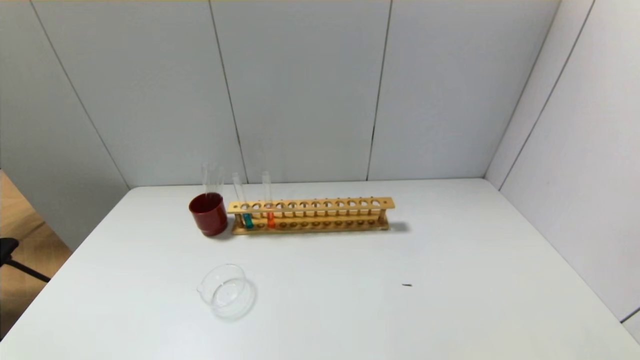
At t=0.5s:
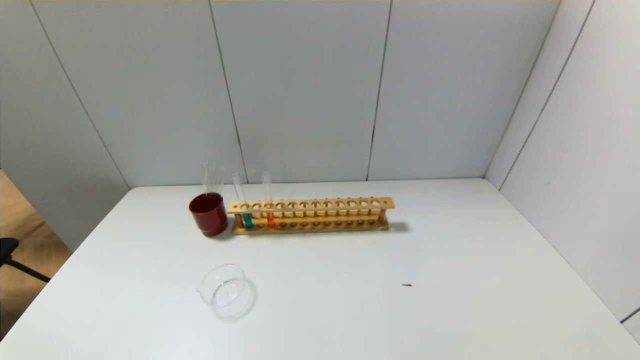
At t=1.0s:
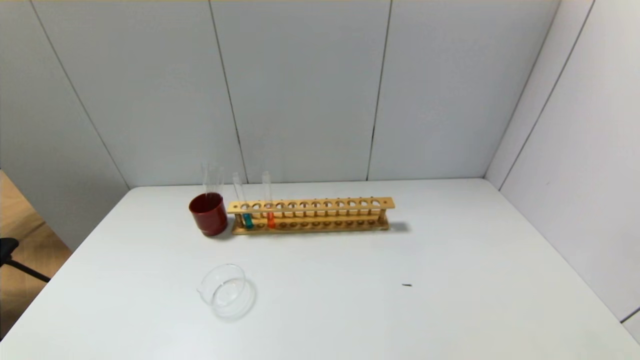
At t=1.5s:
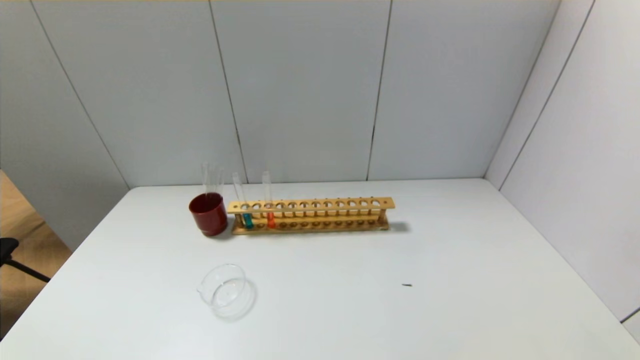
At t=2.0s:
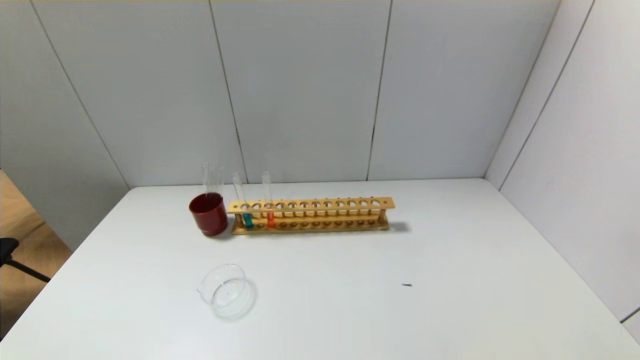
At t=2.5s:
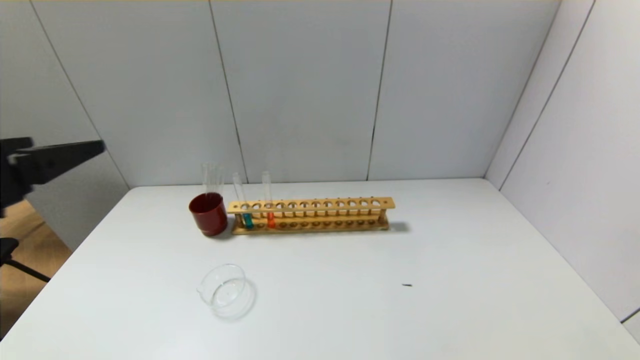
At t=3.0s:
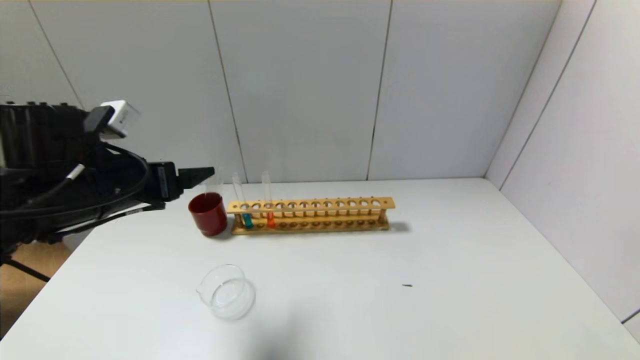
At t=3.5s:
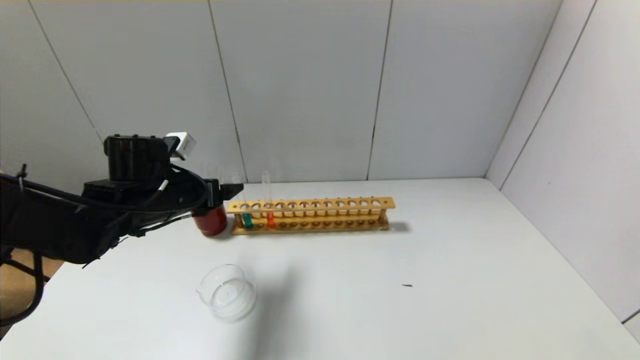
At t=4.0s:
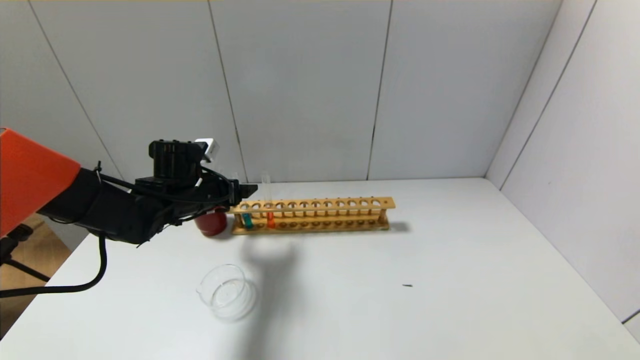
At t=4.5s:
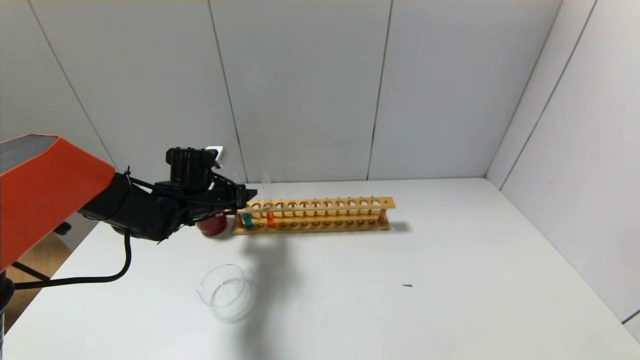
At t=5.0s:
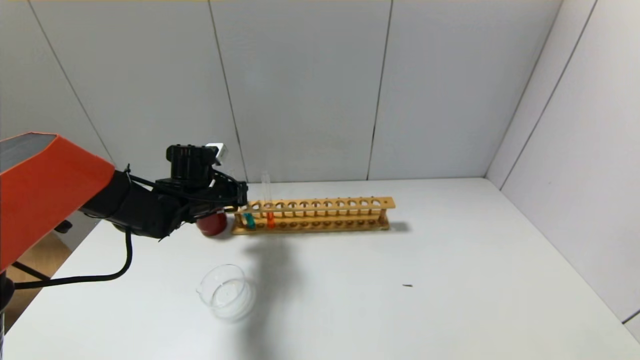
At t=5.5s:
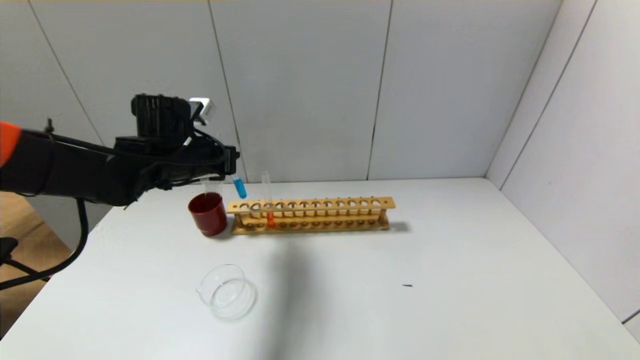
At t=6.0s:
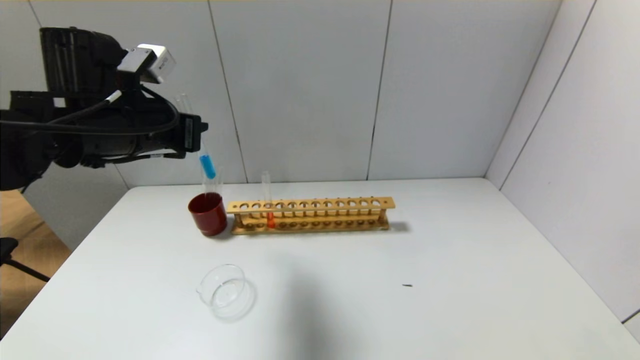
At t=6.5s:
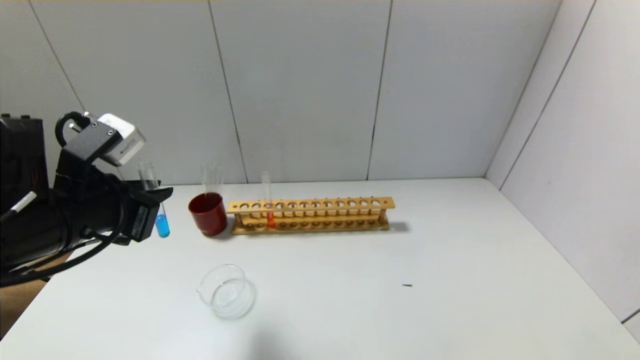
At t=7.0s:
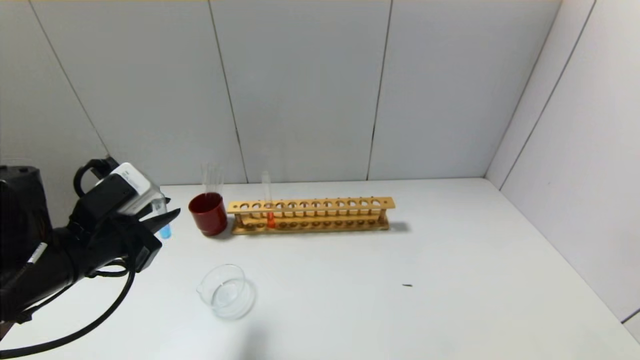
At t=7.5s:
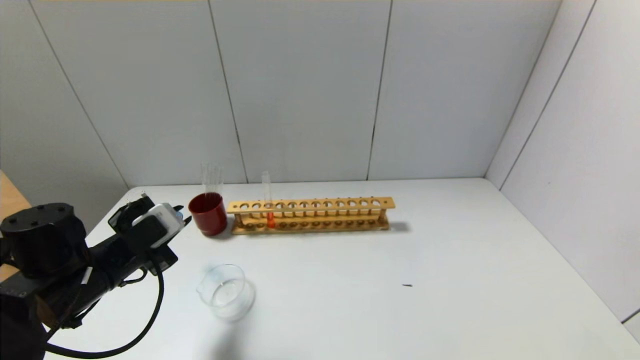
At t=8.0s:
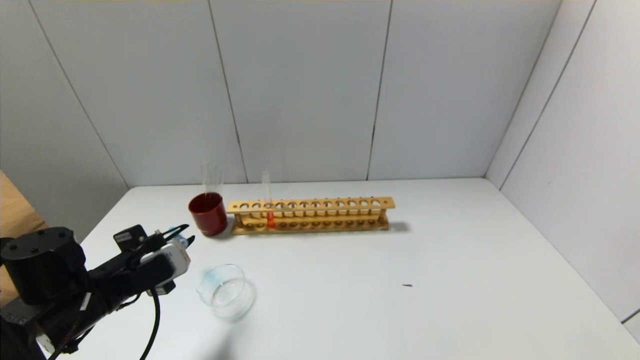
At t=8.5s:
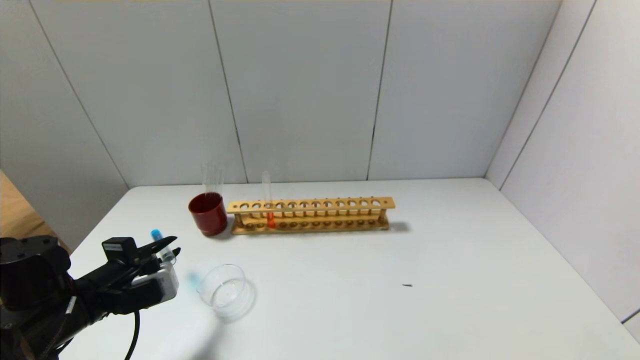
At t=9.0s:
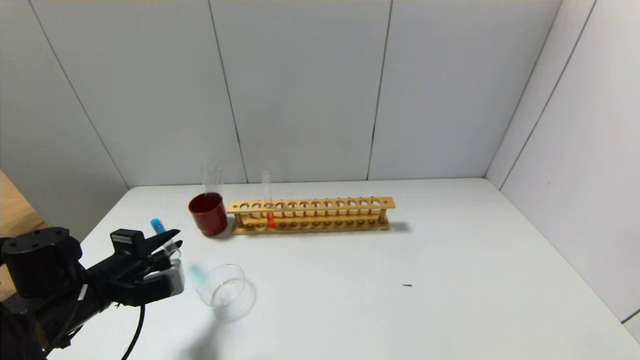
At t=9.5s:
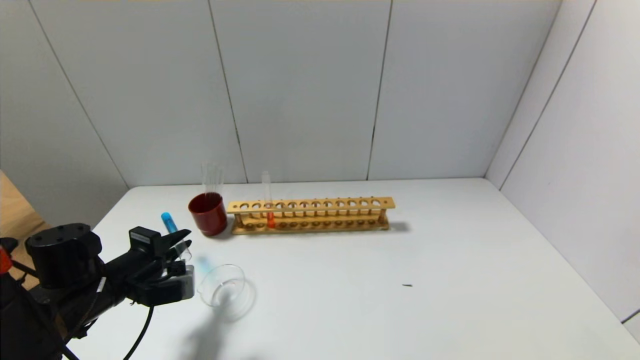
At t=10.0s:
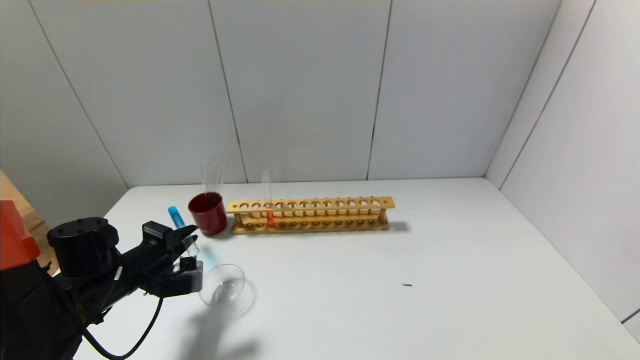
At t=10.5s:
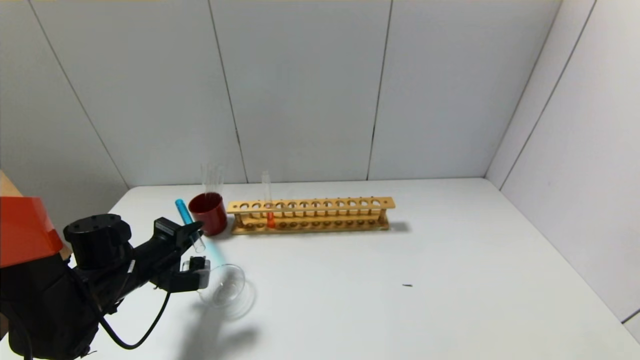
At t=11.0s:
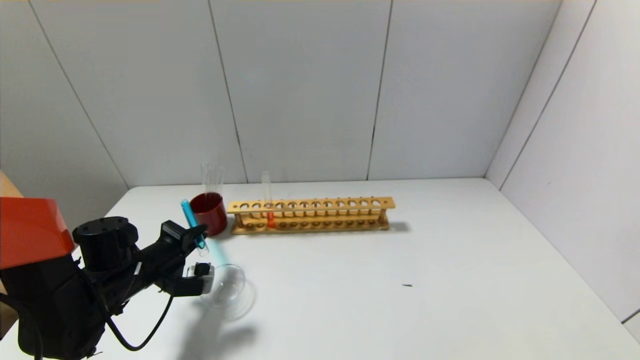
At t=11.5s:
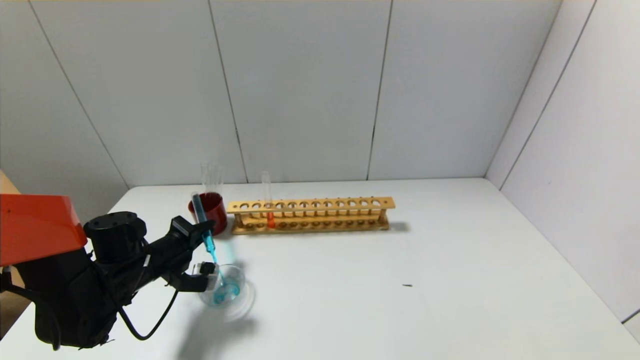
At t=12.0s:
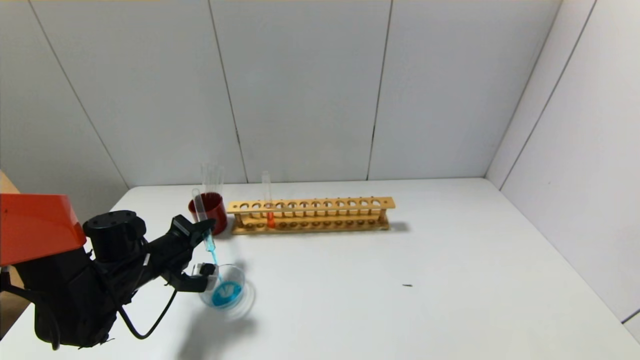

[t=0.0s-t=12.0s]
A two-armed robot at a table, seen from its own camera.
Step, t=0.0s to t=5.0s: Grasp the blue reagent with the left gripper.
t=2.0s to t=4.0s: The left gripper goes some 40 cm forward.
t=4.0s to t=6.0s: The left gripper shifts roughly 15 cm upward and backward, and closes up.
t=6.0s to t=8.0s: The left gripper heads downward and backward, covering roughly 20 cm.
t=8.0s to t=10.0s: The left gripper heads forward, covering about 5 cm.
t=10.0s to t=12.0s: The grippers move only a little.

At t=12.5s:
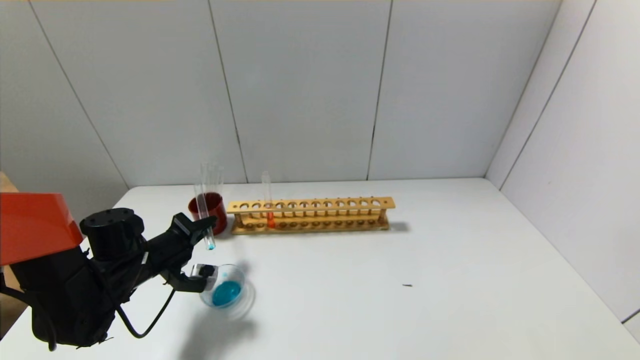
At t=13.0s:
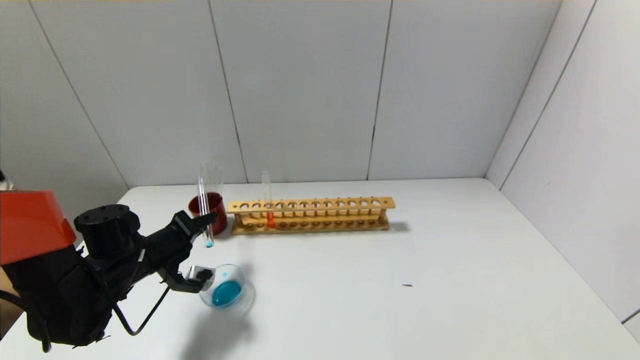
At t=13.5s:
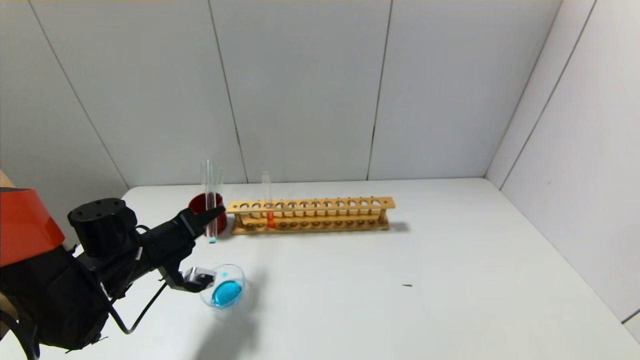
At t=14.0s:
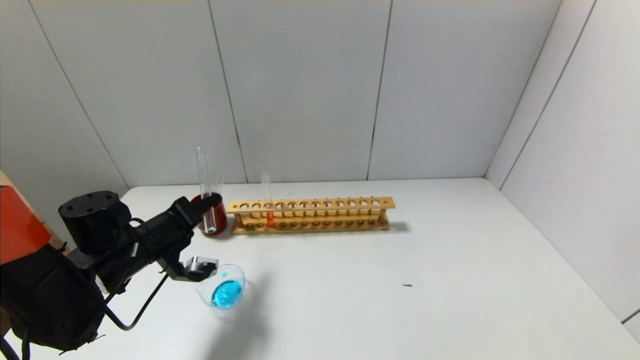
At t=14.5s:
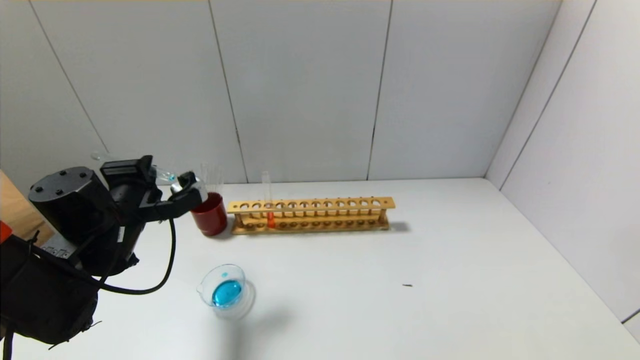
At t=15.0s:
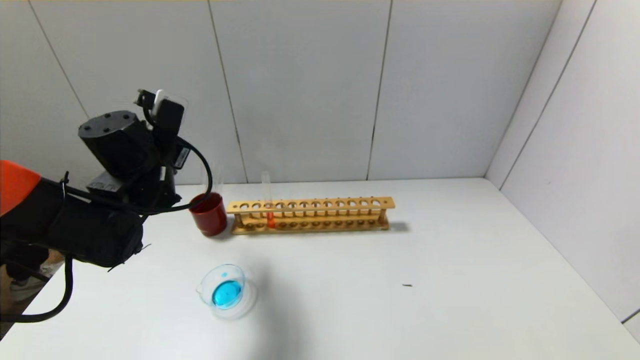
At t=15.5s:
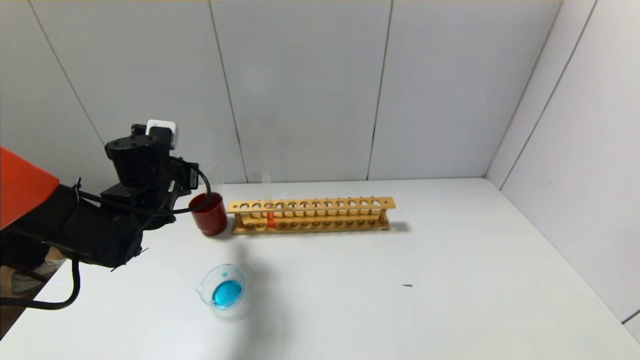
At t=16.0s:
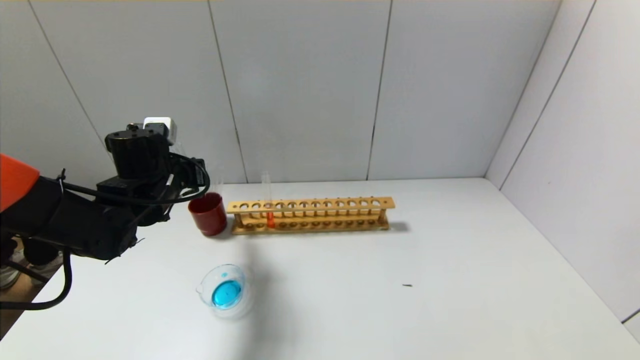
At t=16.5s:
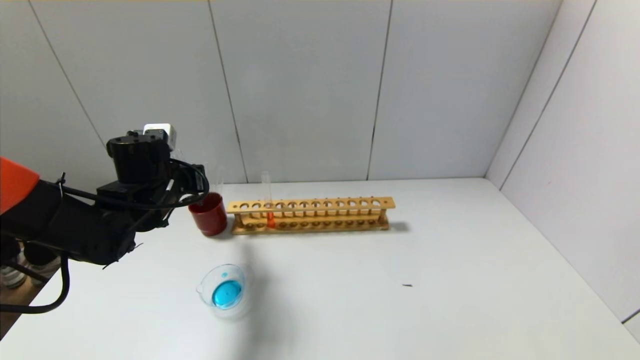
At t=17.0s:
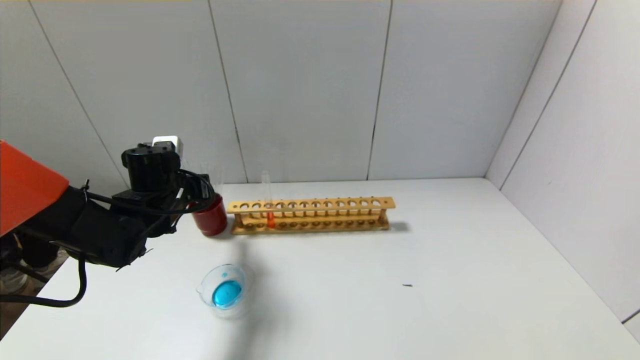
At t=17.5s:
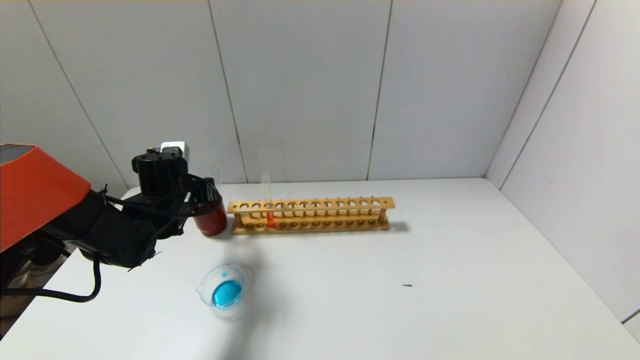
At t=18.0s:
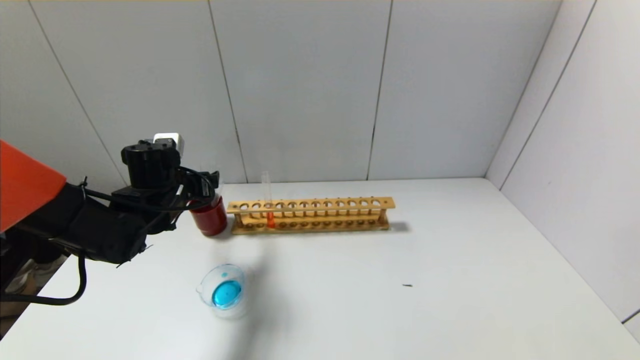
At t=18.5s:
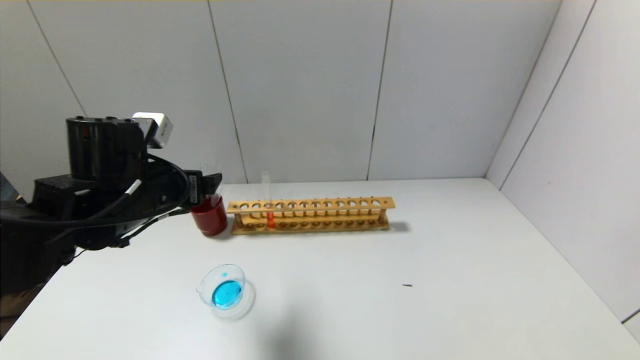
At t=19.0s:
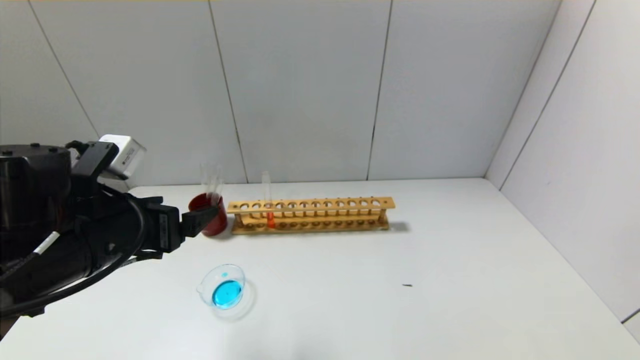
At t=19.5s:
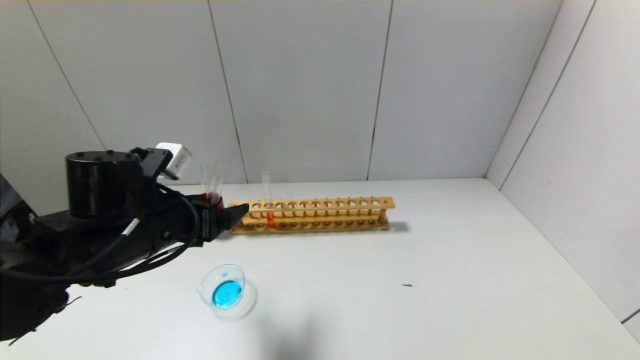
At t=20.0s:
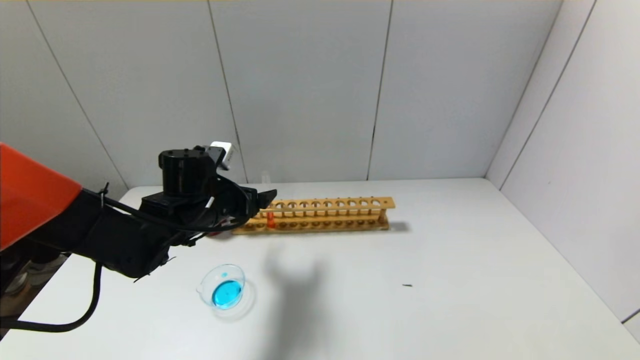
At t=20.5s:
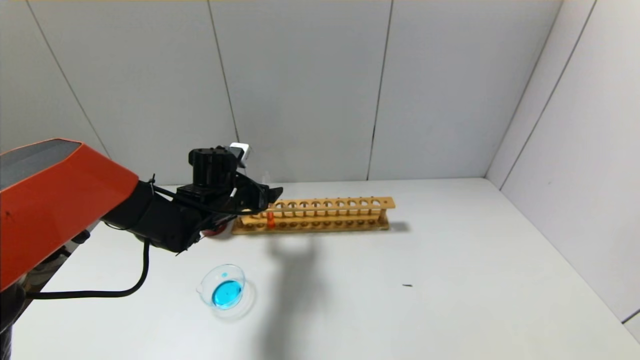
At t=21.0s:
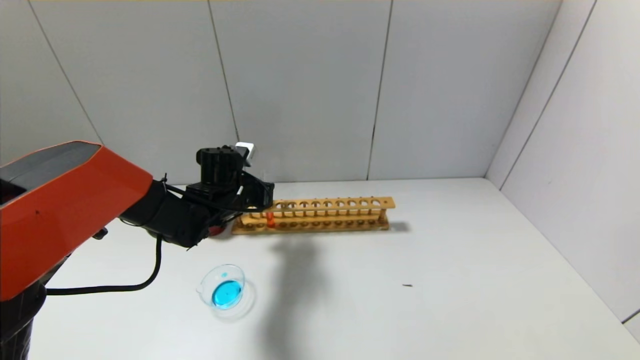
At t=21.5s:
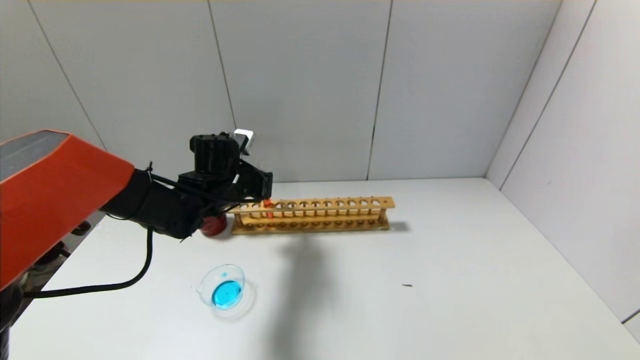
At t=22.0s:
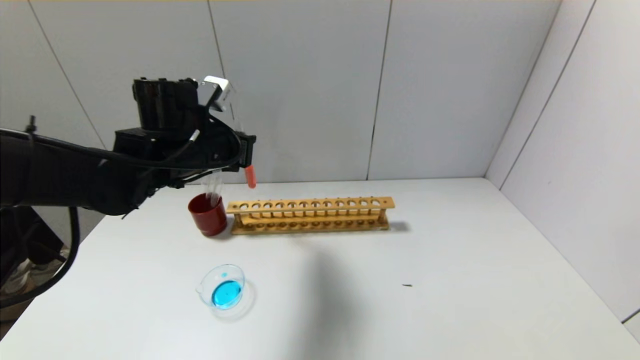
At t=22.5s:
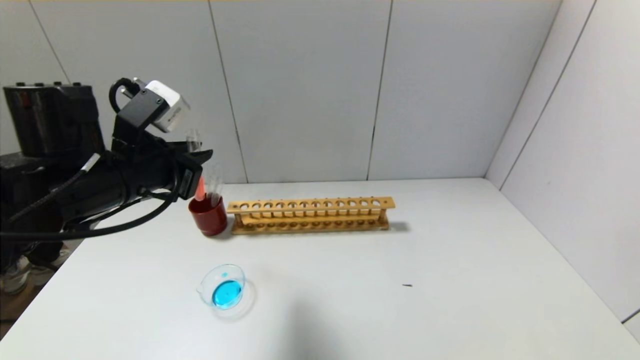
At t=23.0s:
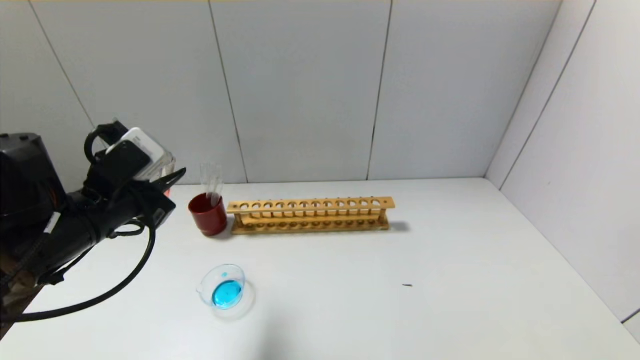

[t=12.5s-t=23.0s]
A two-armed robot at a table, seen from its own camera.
Step, t=14.5s to t=17.5s: Place the test tube into the brown cup with the left gripper.
Step, t=18.0s to t=21.0s: Grasp the red reagent with the left gripper.
t=12.5s to t=14.5s: The left gripper heads upward, covering about 10 cm.
t=14.5s to t=16.5s: The left gripper is displaced forward by some 5 cm.
t=16.5s to t=19.0s: The left gripper moves backward, approximately 15 cm, and opens its fingers.
t=19.0s to t=21.0s: The left gripper goes about 20 cm forward and downward, and closes up.
t=21.0s to t=23.0s: The left gripper shifts roughly 20 cm backward, upward and to the left.
